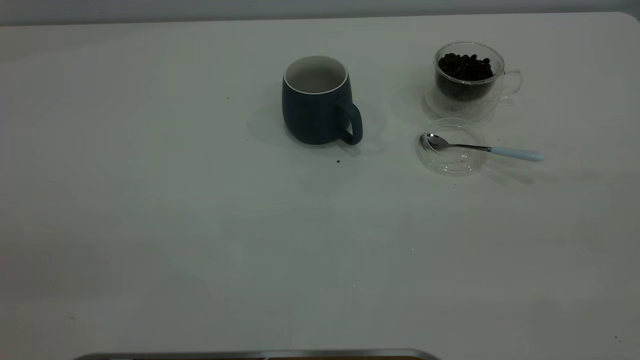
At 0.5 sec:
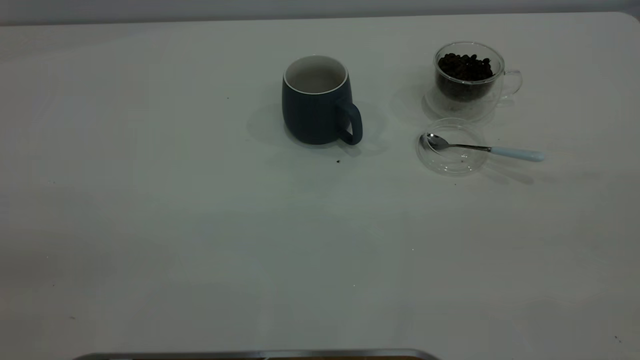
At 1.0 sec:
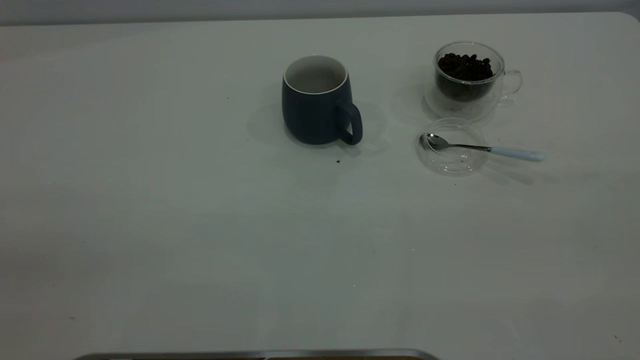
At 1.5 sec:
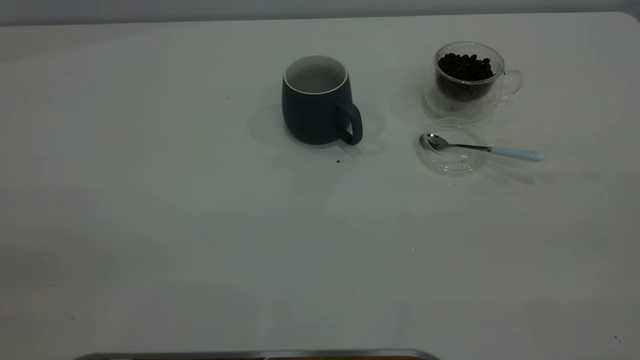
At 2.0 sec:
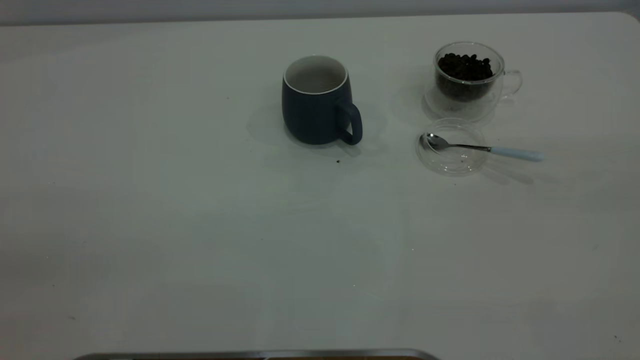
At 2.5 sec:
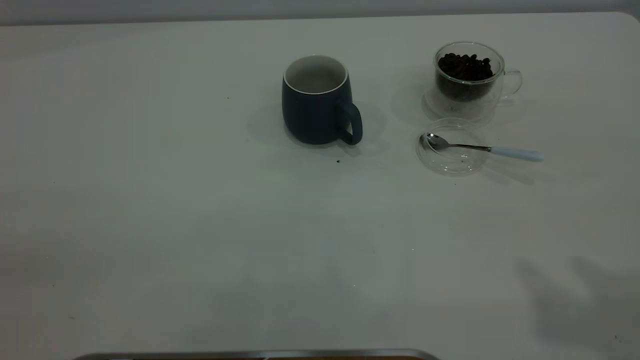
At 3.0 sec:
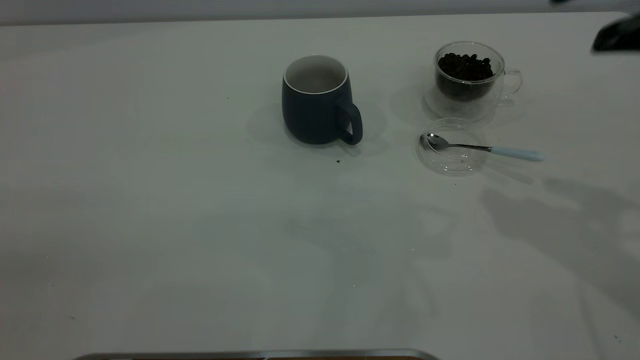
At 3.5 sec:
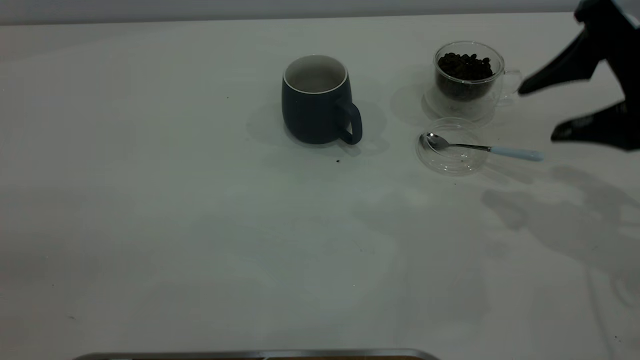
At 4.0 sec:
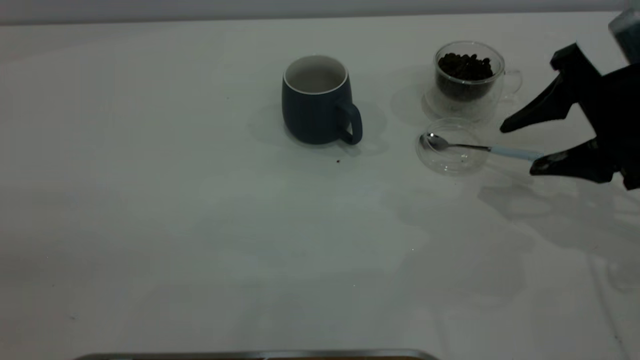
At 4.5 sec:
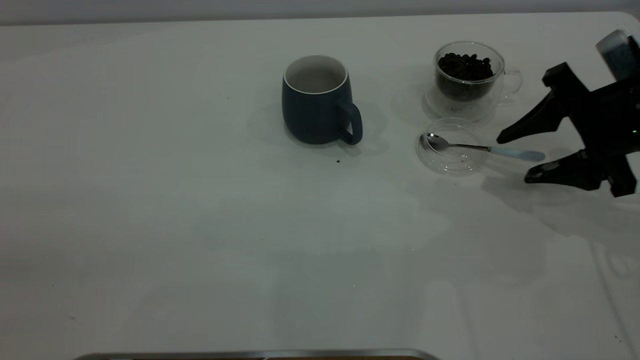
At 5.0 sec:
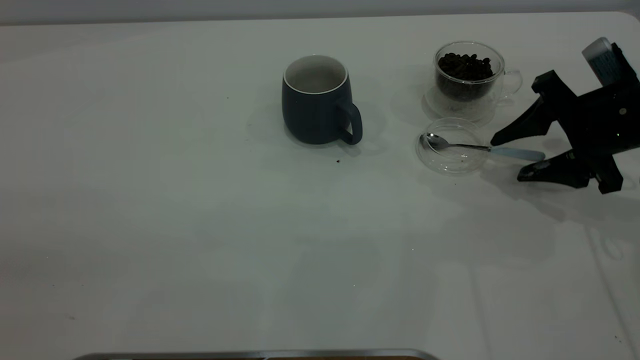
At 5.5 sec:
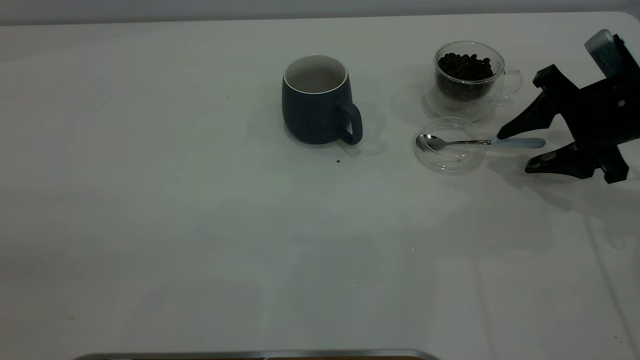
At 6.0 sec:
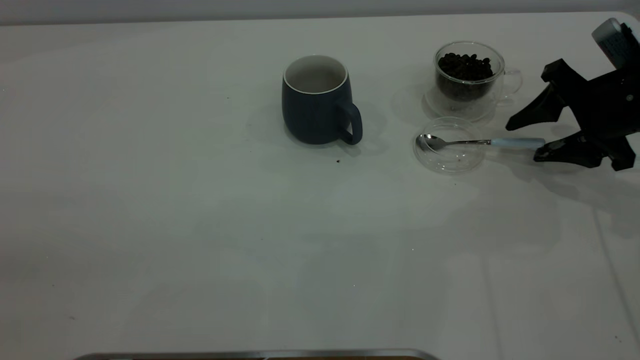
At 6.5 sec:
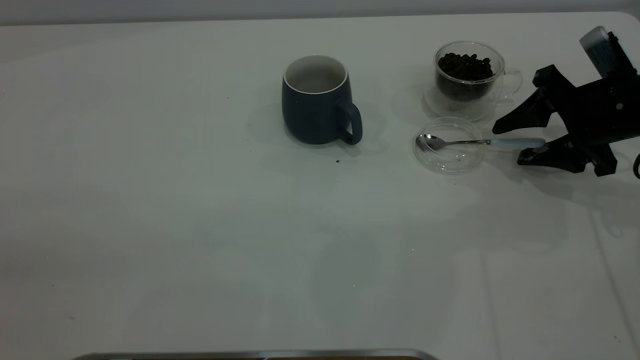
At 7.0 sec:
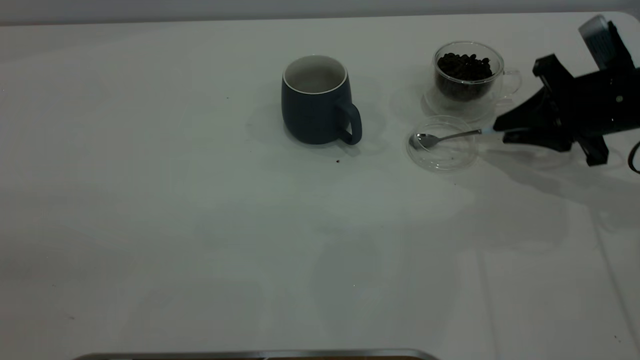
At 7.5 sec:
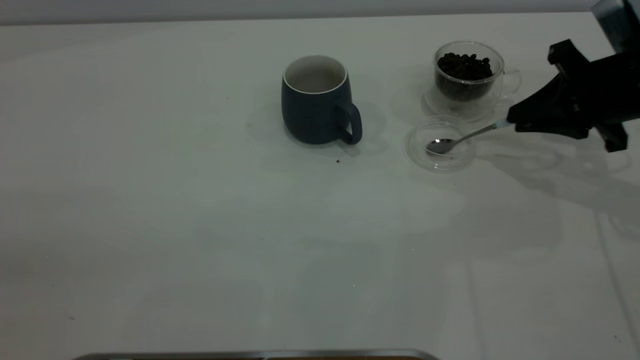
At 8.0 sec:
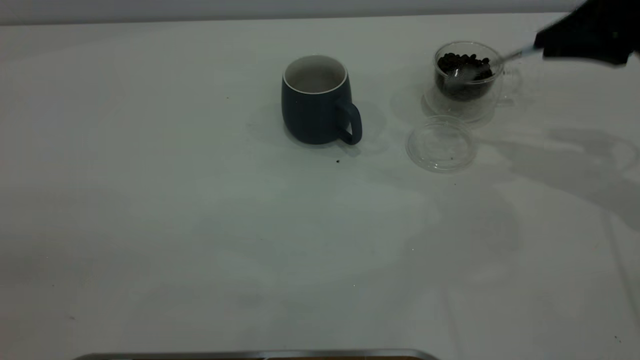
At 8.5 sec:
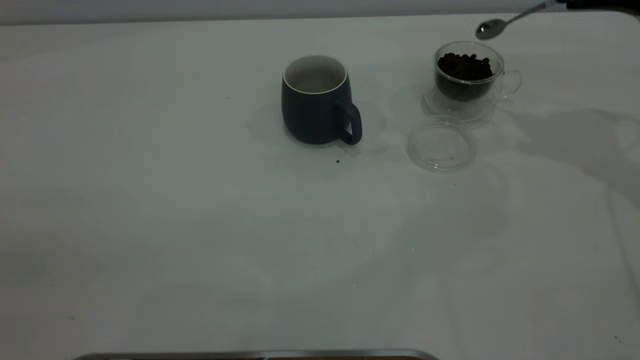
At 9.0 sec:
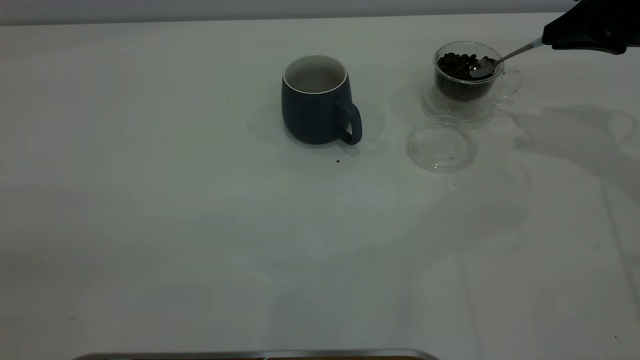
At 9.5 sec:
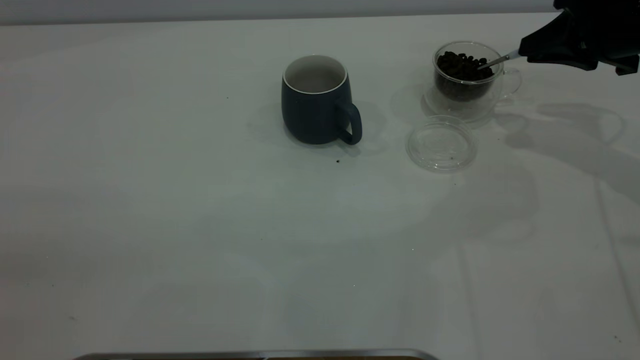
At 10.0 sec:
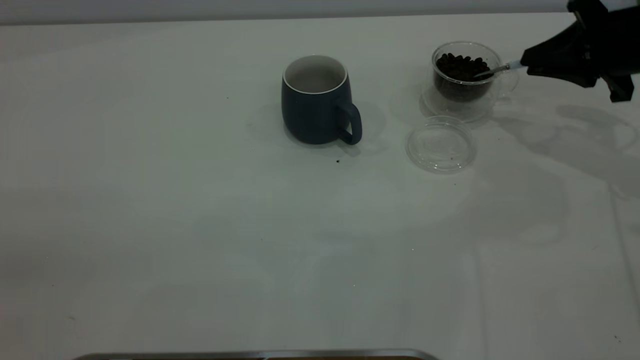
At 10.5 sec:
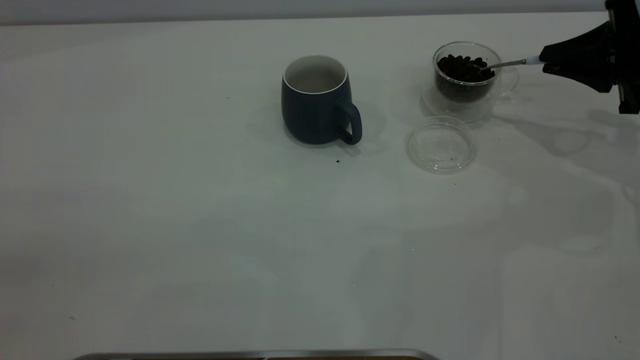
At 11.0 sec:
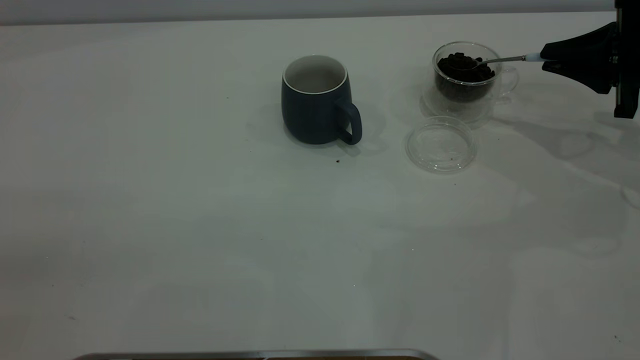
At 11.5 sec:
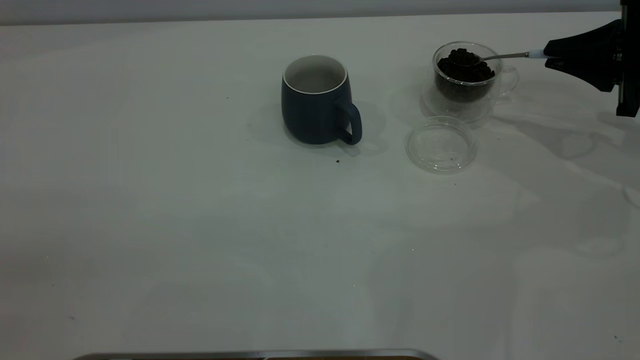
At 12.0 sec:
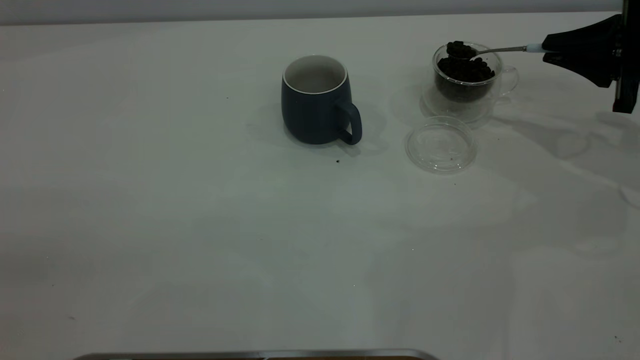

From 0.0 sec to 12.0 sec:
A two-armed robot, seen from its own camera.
Task of the whole recording: the left gripper place the grey cup in the center of the table, the right gripper take the blue spoon from the cup lid and scoop out the coffee beans from the coffee cup and put them into the grey cup, the right gripper put the spoon back into the cup lid.
Step, from 0.0 sec to 7.5 sec: Pick up the spoon.
From 2.0 sec to 4.0 sec: The right gripper is displaced forward and downward by roughly 35 cm.
From 4.0 sec to 6.0 sec: The right gripper shifts some 5 cm forward.
From 6.0 sec to 8.0 sec: The right gripper heads upward, covering roughly 10 cm, and closes its fingers.
From 8.0 sec to 10.0 sec: The right gripper goes about 5 cm downward.
From 10.0 sec to 12.0 sec: The grippers stay close to where they were, moving slightly.

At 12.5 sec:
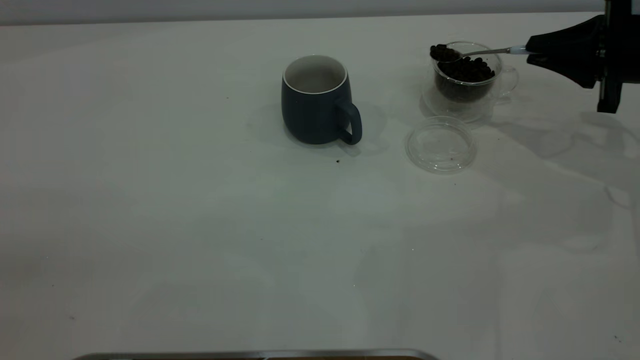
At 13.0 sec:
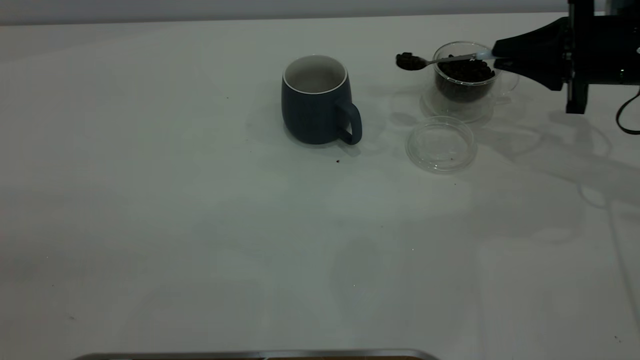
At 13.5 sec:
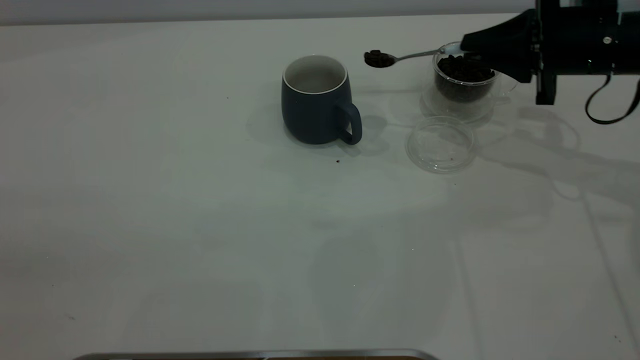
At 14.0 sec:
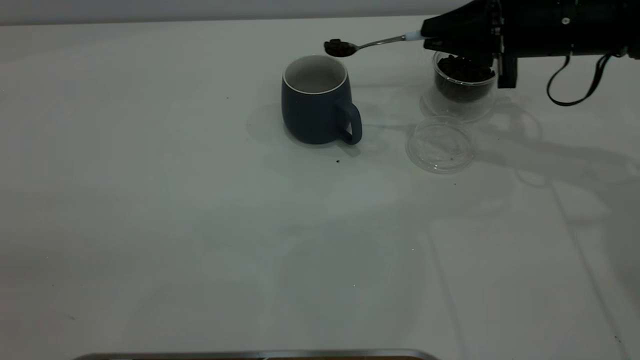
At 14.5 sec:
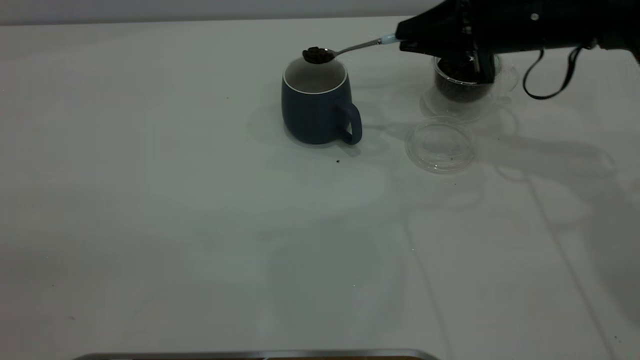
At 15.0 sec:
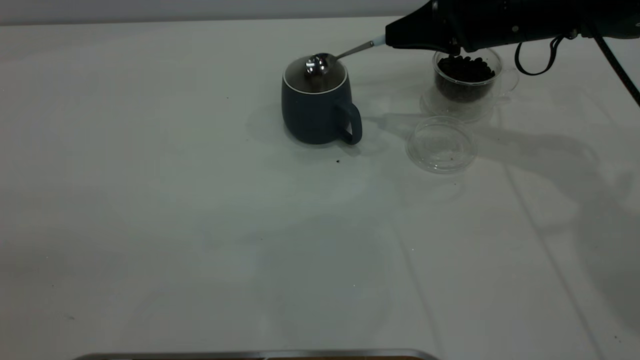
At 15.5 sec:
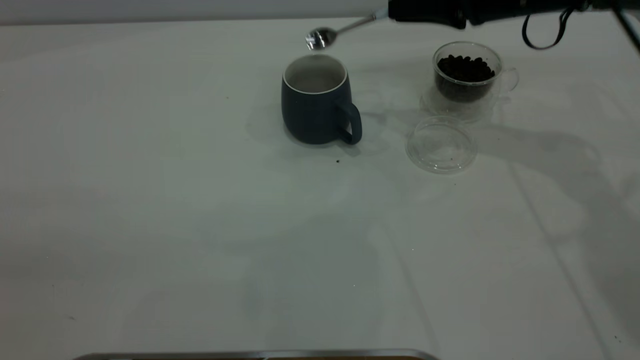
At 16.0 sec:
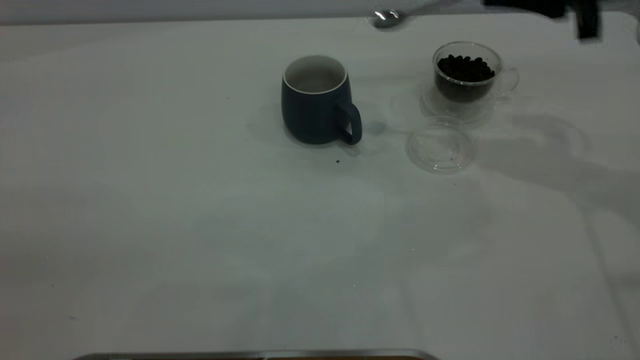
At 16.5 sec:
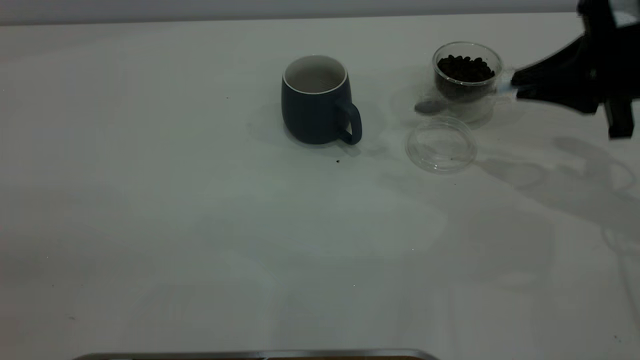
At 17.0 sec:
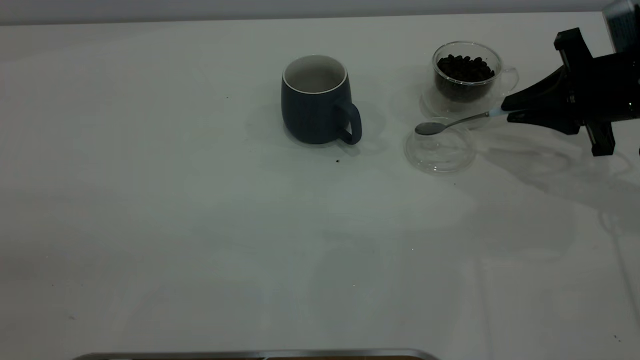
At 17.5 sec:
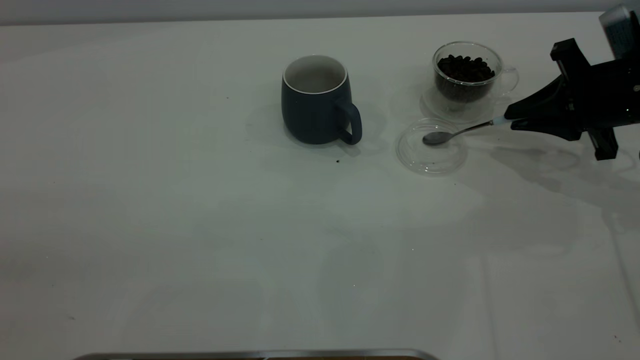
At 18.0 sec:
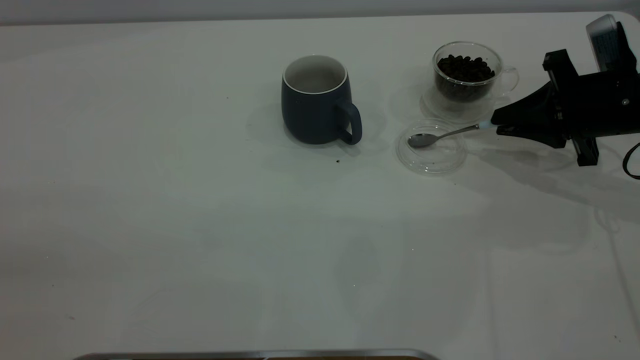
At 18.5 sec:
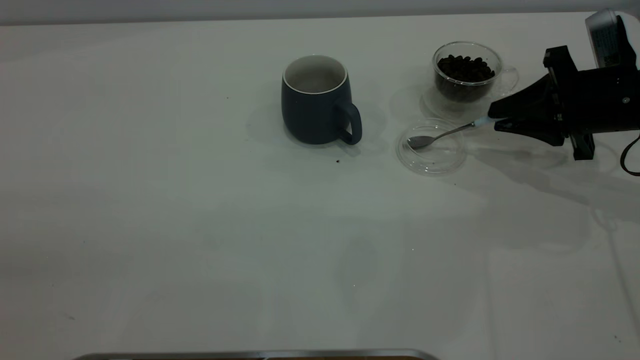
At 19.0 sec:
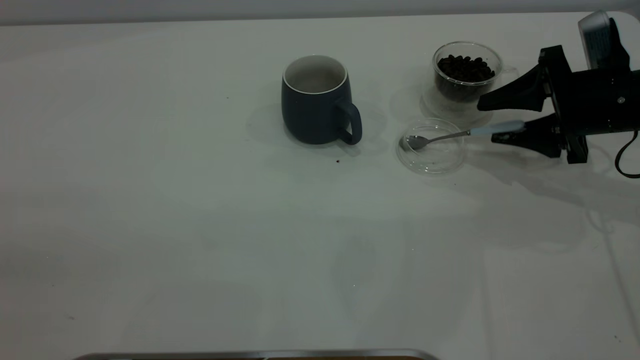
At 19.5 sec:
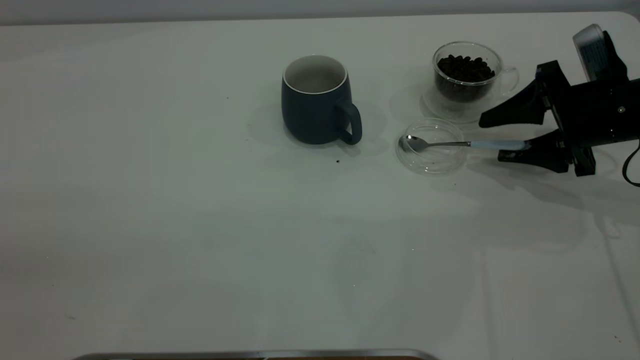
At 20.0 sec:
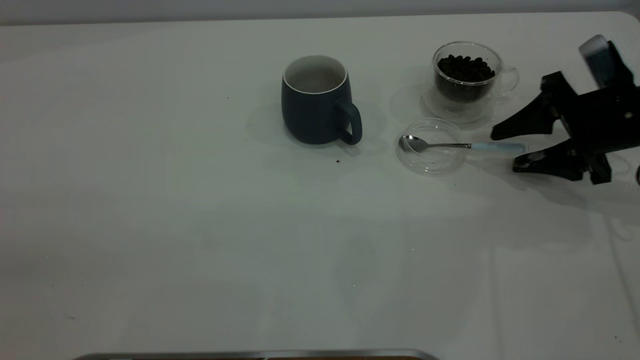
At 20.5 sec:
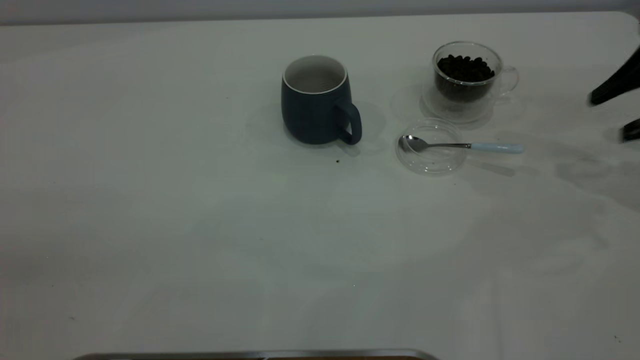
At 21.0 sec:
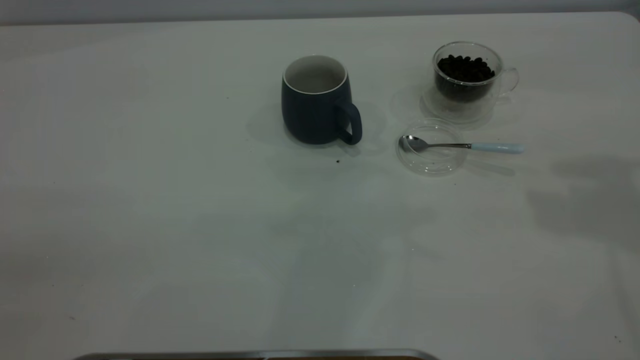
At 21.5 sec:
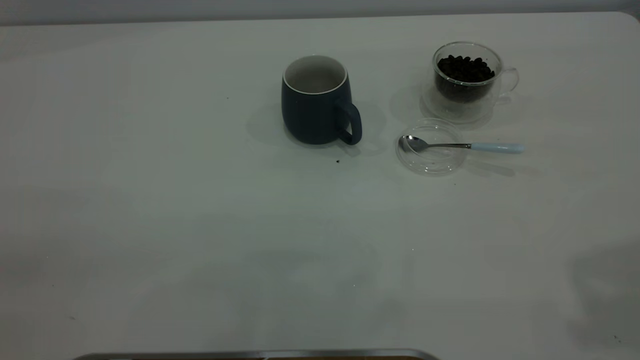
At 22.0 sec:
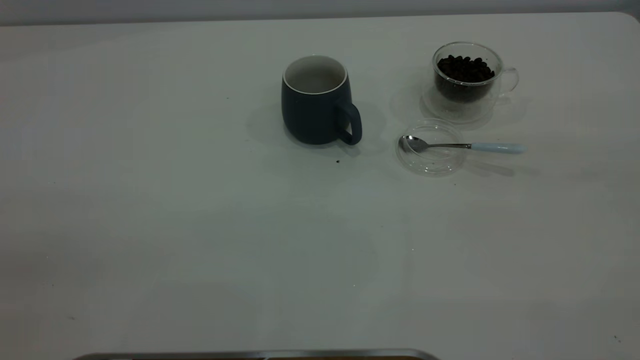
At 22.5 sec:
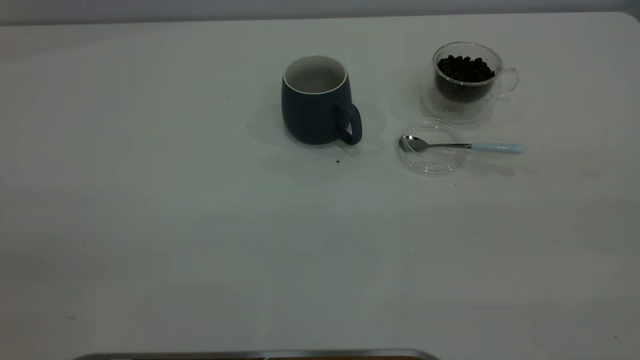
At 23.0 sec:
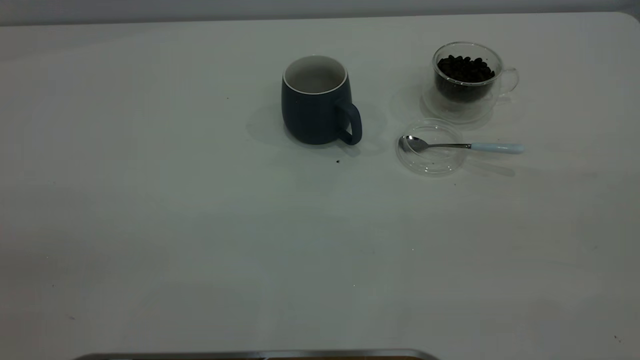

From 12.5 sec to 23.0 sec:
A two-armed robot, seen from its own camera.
Task of the whole recording: the left gripper place the grey cup in the center of the table, the right gripper take the blue spoon from the cup lid and scoop out the coffee beans from the coffee cup and put them into the grey cup, the right gripper put the spoon back into the cup lid.
Step, from 12.5 sec to 15.5 sec: Scoop a spoonful of beans into the cup.
Step, from 16.0 sec to 20.0 sec: Place the spoon back in its original place.
From 12.5 sec to 14.5 sec: The right gripper heads to the left, covering about 15 cm.
From 14.5 sec to 16.5 sec: The right gripper shifts approximately 15 cm to the right and backward.
From 16.5 sec to 19.0 sec: The right gripper moves downward, roughly 5 cm, and opens up.
From 19.0 sec to 21.0 sec: The right gripper goes about 30 cm upward.
